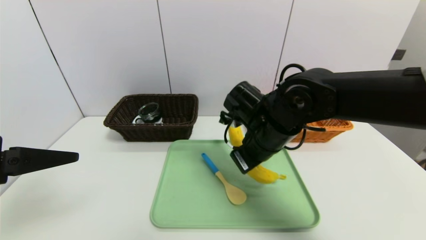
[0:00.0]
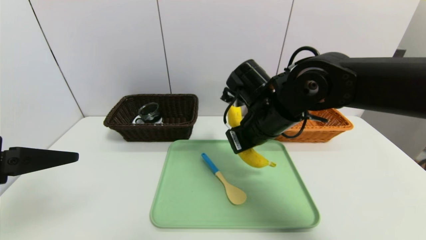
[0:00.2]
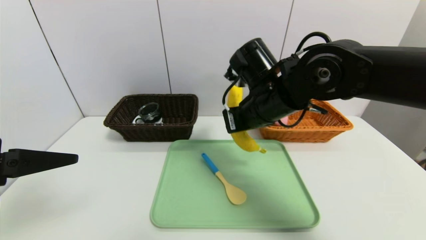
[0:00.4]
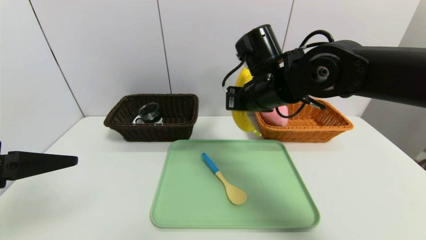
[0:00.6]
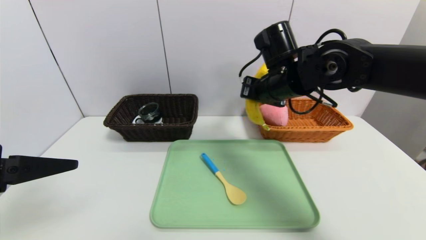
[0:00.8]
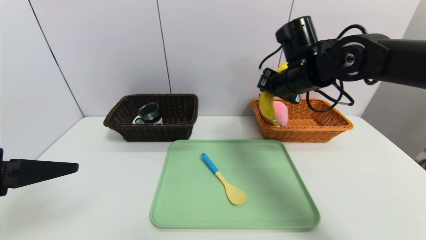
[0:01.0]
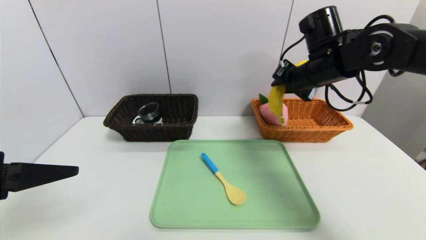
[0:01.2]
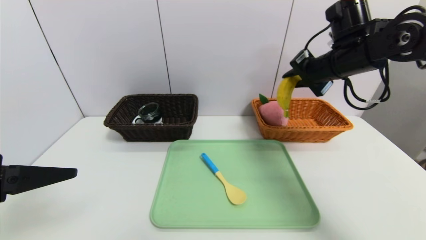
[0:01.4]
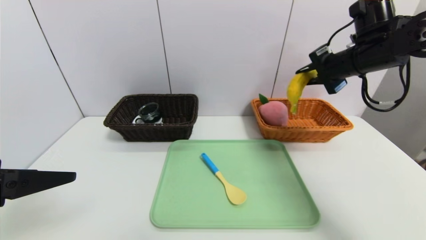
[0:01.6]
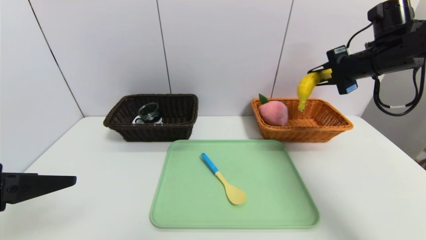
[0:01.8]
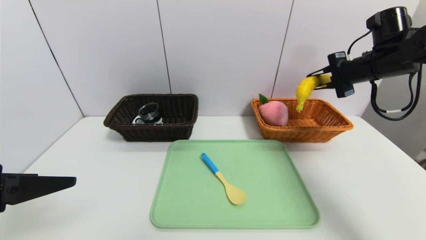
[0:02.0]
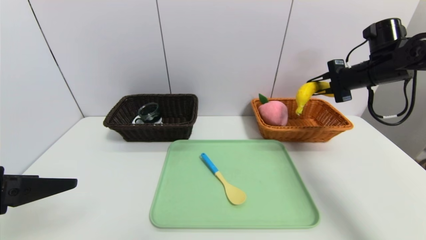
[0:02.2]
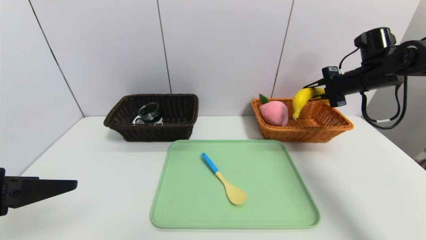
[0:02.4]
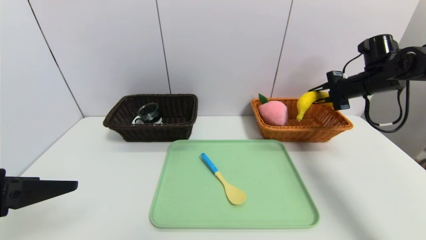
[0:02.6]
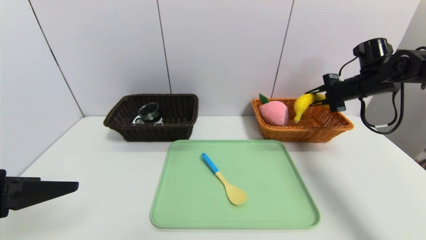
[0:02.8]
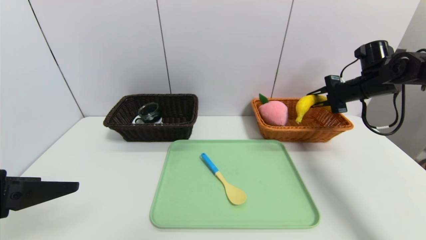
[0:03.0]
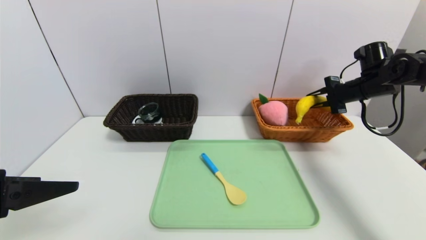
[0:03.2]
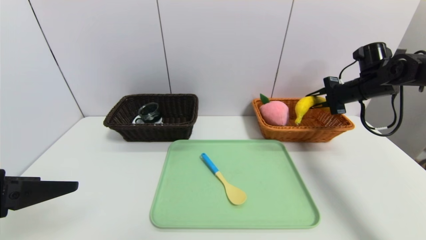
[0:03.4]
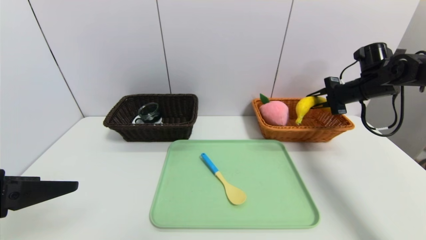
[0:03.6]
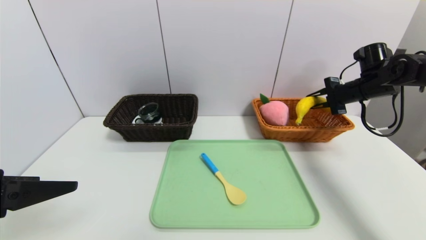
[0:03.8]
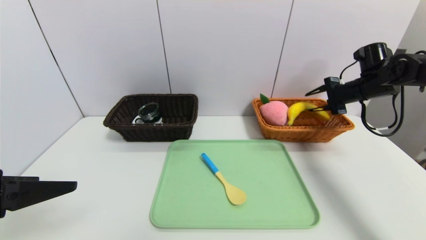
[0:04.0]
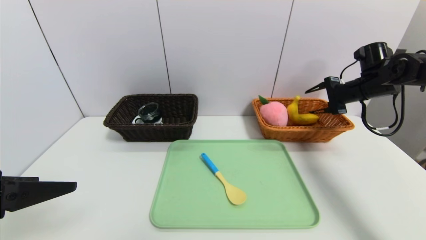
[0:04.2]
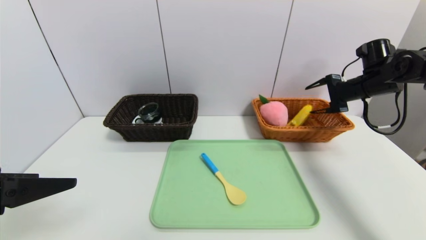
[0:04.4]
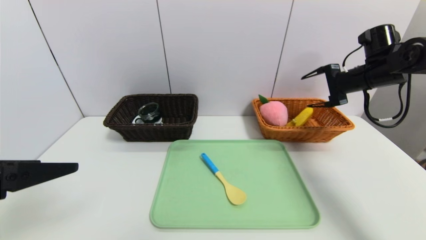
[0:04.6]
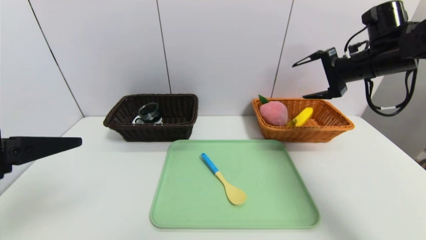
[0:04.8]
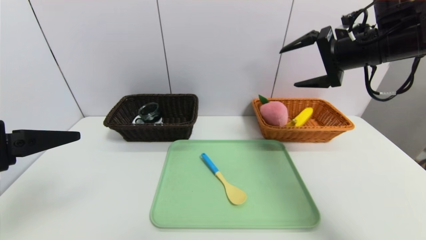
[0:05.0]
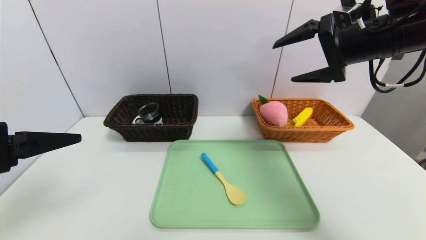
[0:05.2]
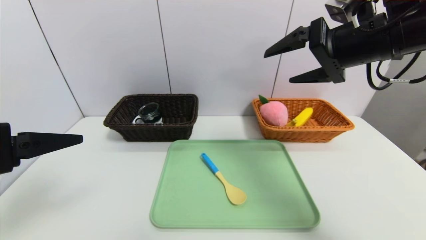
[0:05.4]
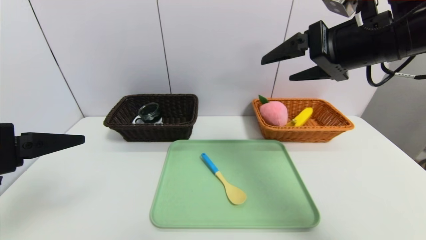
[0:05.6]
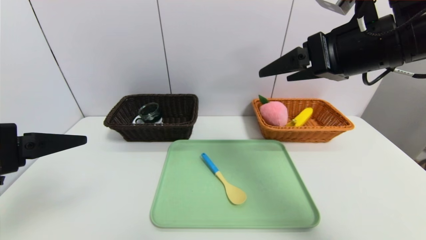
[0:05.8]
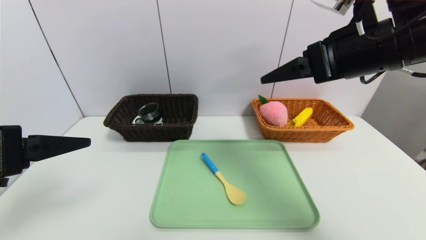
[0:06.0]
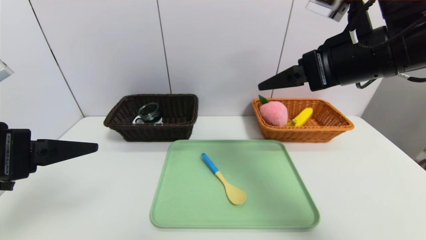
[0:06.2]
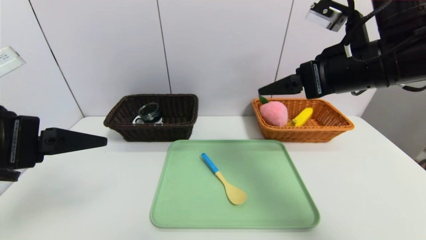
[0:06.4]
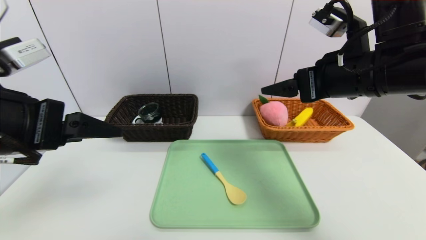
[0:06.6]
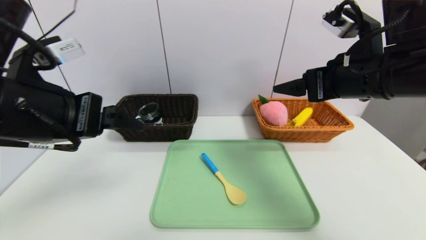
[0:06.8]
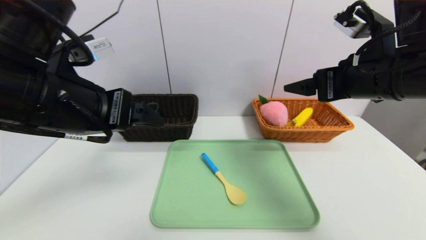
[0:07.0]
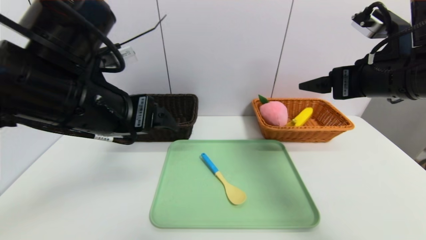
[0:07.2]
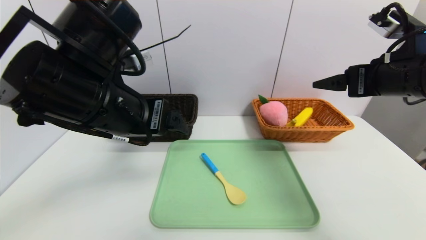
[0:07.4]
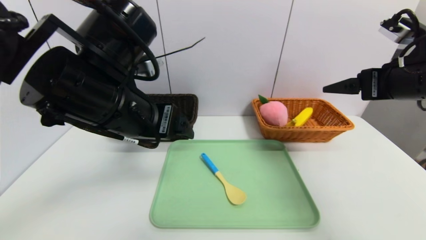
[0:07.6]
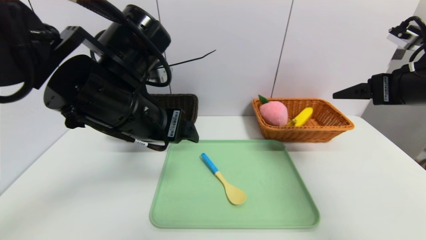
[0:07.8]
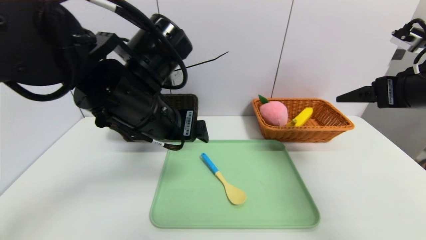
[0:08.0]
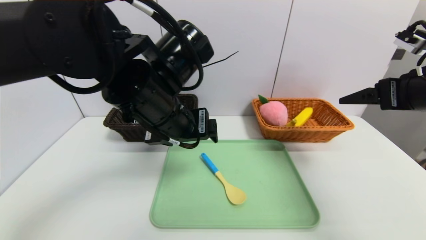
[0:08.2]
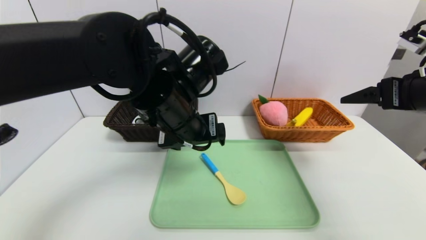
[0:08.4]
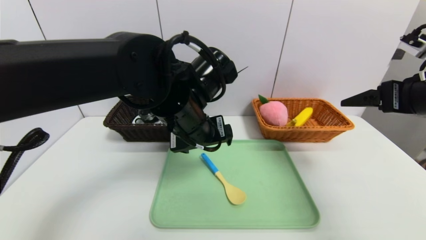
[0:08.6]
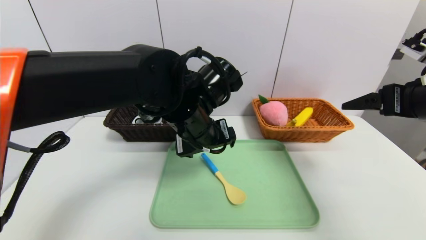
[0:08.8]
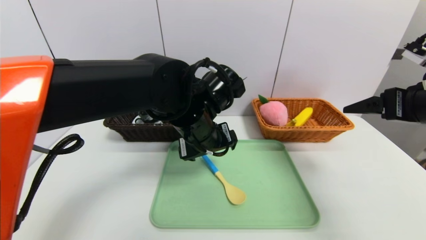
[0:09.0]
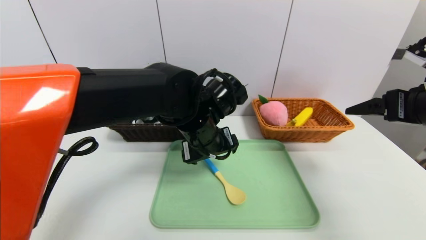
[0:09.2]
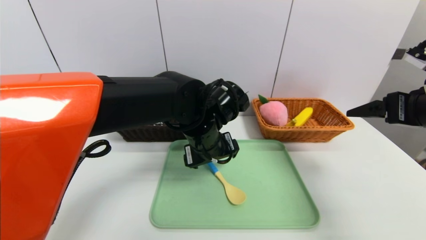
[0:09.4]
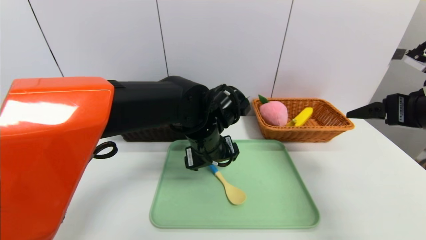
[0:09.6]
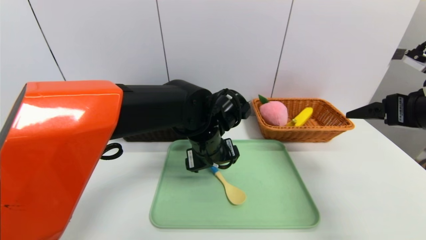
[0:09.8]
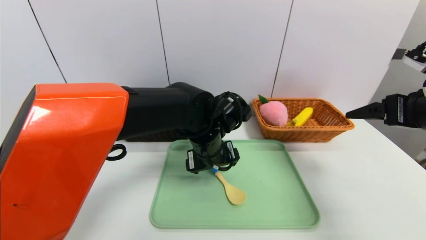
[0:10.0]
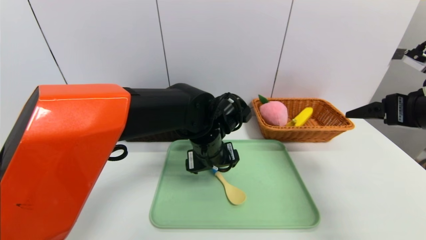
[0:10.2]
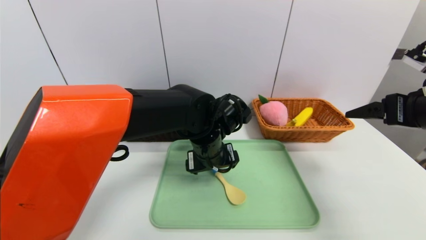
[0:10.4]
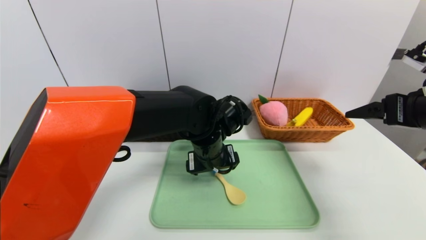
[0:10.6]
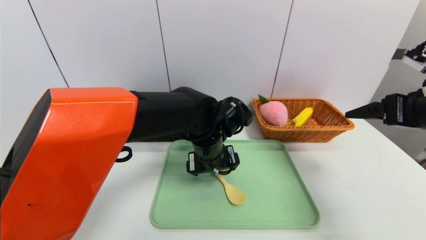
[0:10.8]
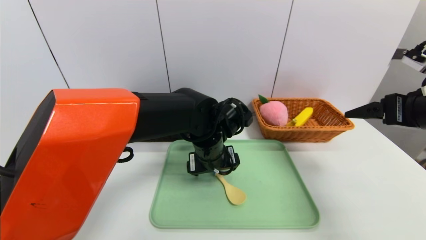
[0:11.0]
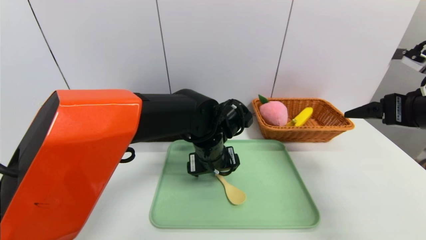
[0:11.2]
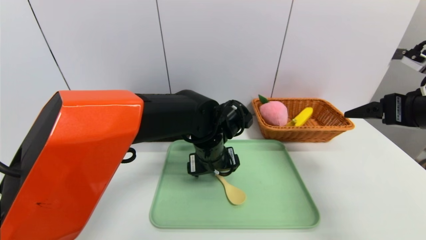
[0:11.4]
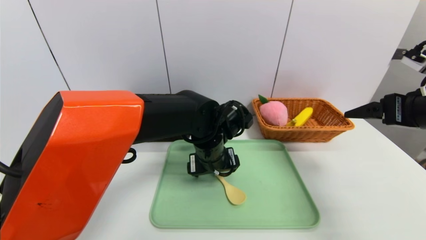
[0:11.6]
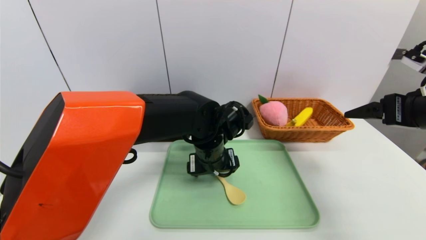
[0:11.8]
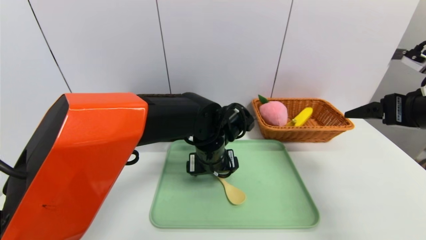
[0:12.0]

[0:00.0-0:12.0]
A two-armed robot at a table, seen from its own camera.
Task of the whole recording: place the food in the right basket with the right gripper, and place the non food items in the left basket with the left gripper.
Step, 0:00.0 to 0:04.2: Grasp the banana and put it in the right basket.
0:00.0 to 0:01.6: The right gripper travels to the right, upward and forward by approximately 25 cm.
0:01.6 to 0:03.0: The right gripper moves to the right, downward and forward, roughly 15 cm.
0:03.0 to 0:04.4: The right gripper opens.
0:04.4 to 0:06.0: The right gripper moves backward, to the left and upward, roughly 25 cm.
0:06.0 to 0:07.6: The left gripper goes approximately 15 cm to the right and forward, while the right gripper shifts about 10 cm to the right.
0:07.6 to 0:09.0: The left gripper moves to the right, downward and forward, about 15 cm.
0:09.0 to 0:10.4: The left gripper is displaced downward by roughly 5 cm.
0:10.4 to 0:12.0: There are only small adjustments of the grippers.

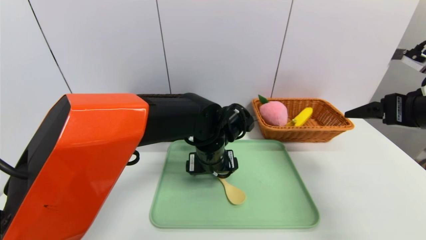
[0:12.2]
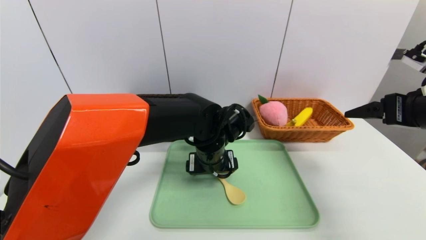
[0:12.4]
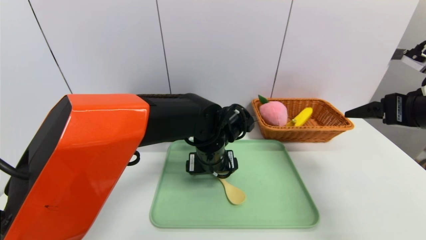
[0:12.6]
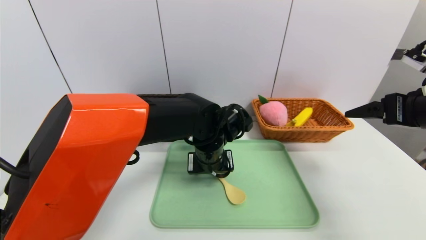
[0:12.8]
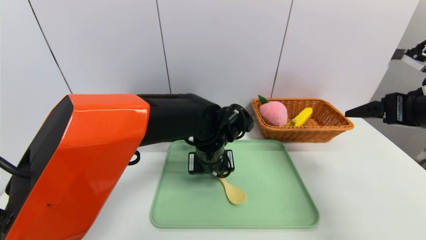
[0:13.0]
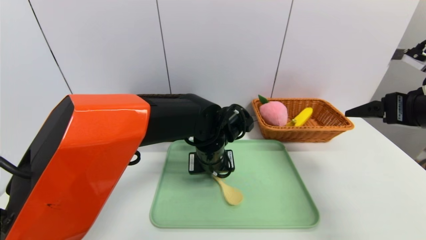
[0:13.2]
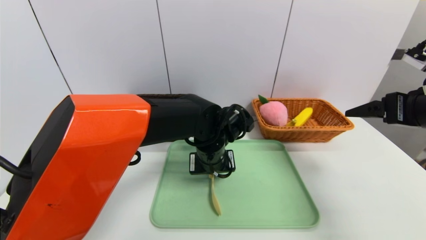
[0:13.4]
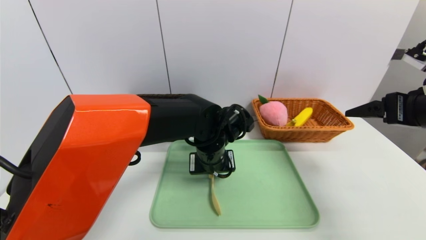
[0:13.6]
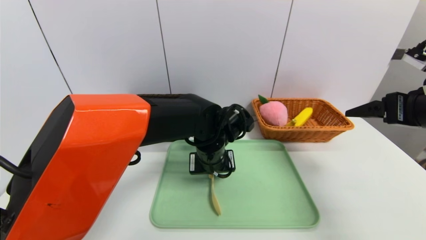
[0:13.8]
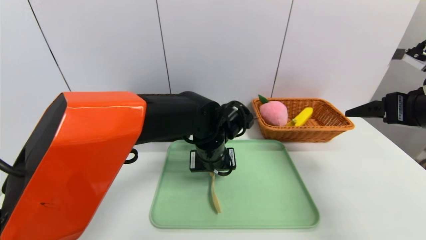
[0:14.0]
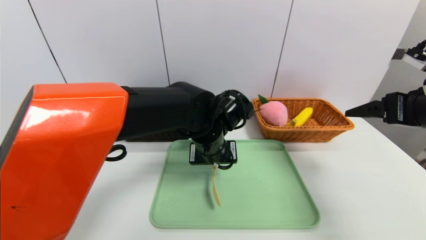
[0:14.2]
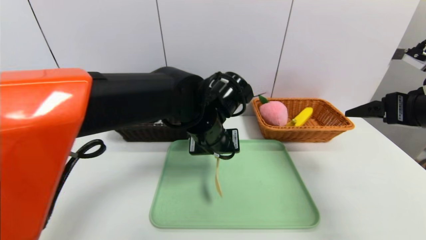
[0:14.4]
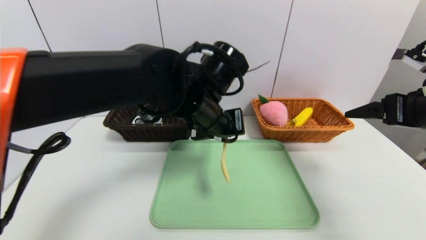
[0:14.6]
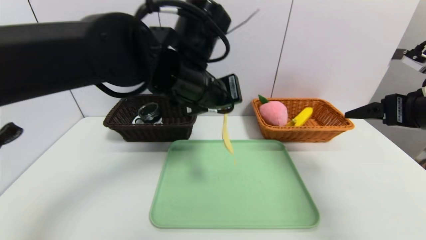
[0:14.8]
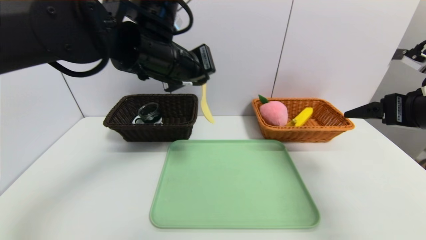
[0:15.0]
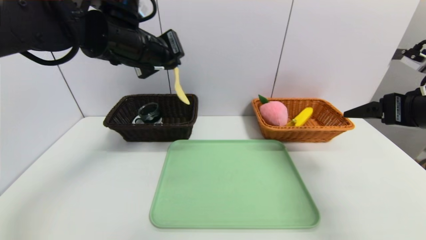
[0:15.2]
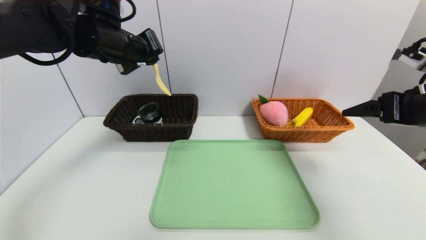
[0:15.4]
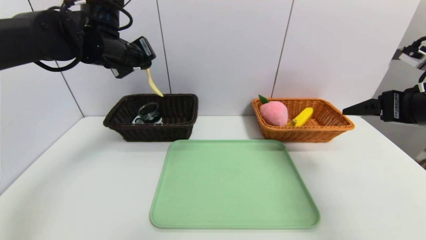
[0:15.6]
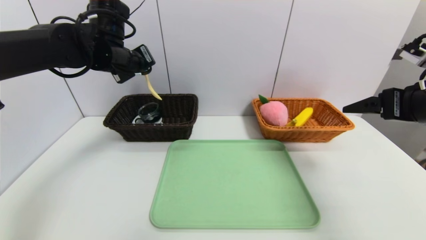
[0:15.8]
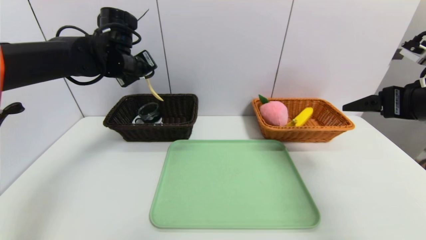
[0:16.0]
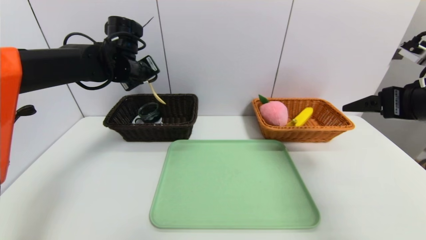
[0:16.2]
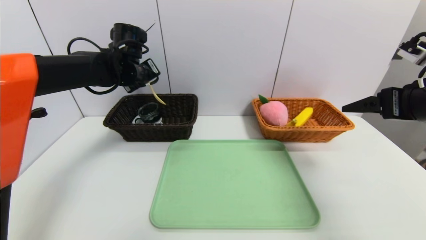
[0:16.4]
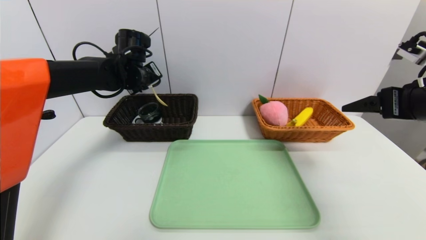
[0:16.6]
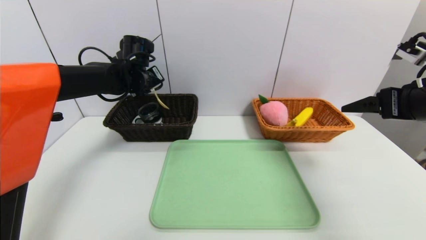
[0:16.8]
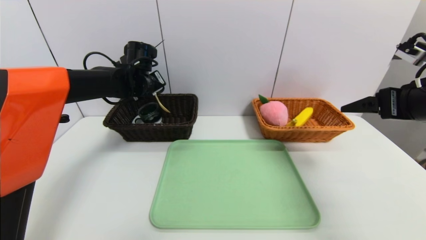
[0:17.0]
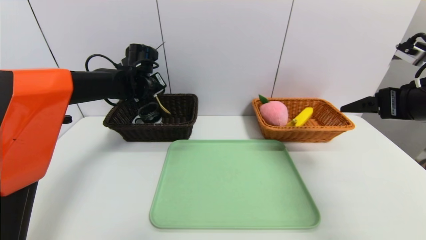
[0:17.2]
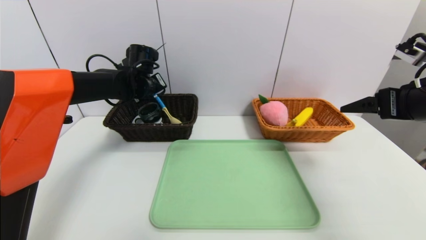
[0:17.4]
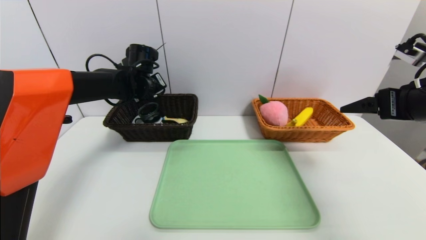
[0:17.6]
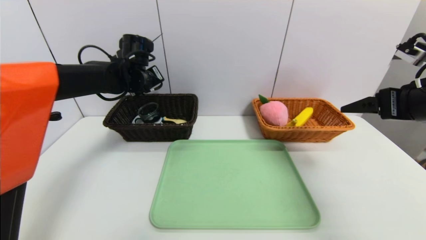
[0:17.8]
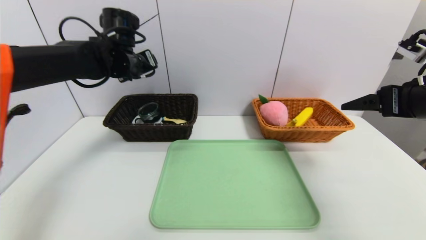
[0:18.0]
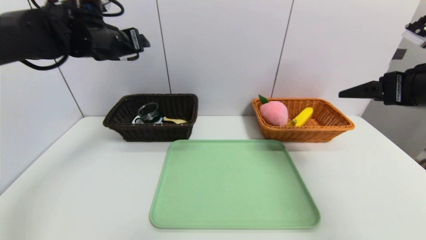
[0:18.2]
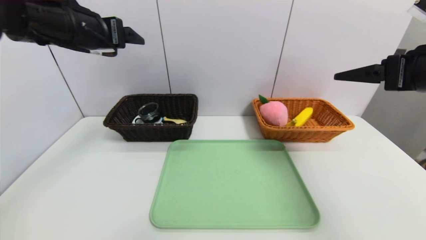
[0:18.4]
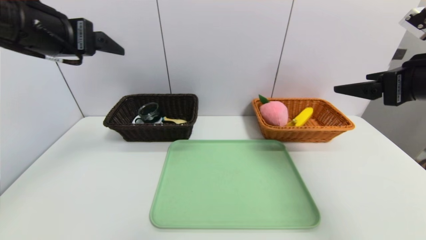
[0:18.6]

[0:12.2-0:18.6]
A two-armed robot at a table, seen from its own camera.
Task of the whole recording: place the food in the right basket with the right gripper, and place the non food items in the left basket with the left gripper.
Step, 0:12.2 to 0:17.8: Grasp the spoon and put it in the left basket.
0:12.2 to 0:13.8: The left gripper closes.
0:13.8 to 0:15.4: The left gripper is displaced upward and to the left by approximately 25 cm.
0:15.4 to 0:17.0: The left gripper is displaced forward and downward by some 15 cm.
0:17.0 to 0:18.6: The left gripper is displaced backward and upward by roughly 25 cm, and opens up.
